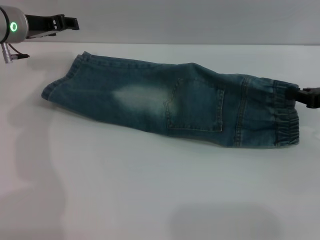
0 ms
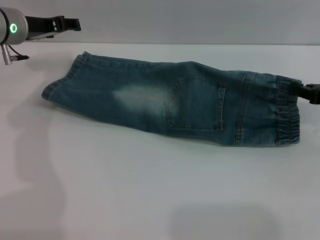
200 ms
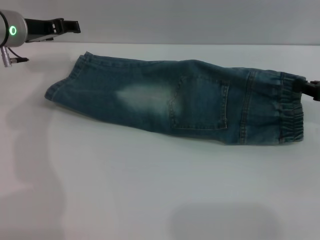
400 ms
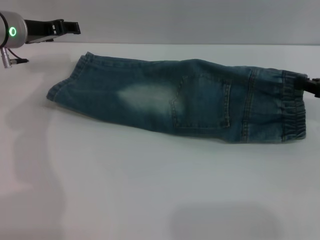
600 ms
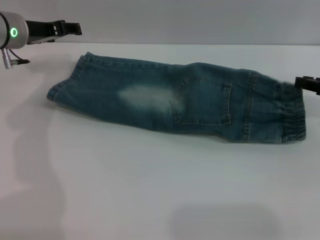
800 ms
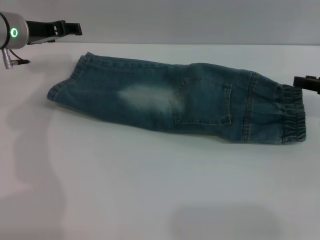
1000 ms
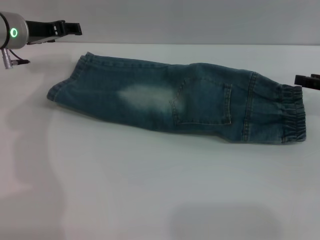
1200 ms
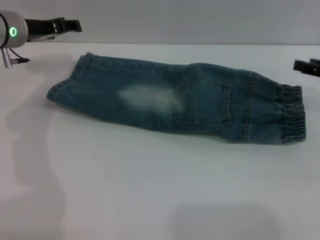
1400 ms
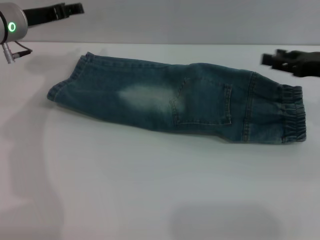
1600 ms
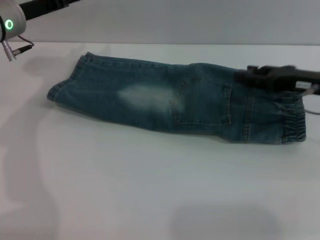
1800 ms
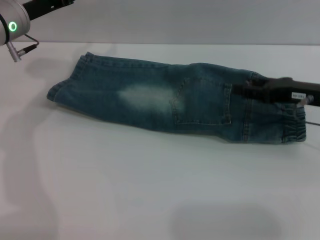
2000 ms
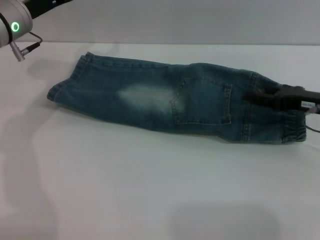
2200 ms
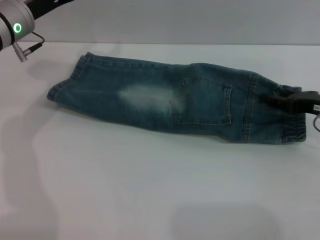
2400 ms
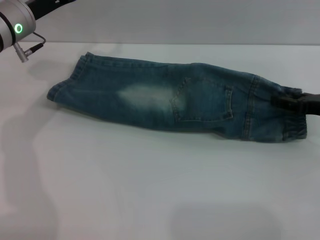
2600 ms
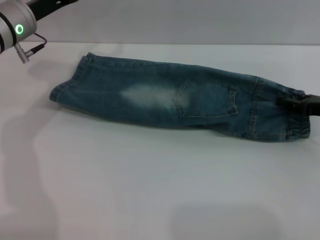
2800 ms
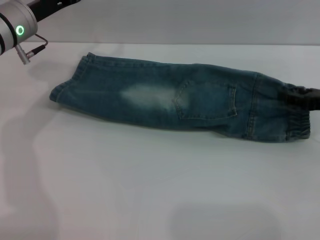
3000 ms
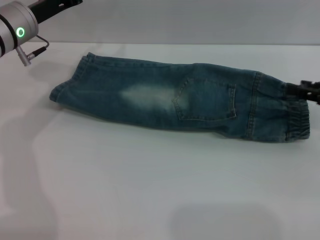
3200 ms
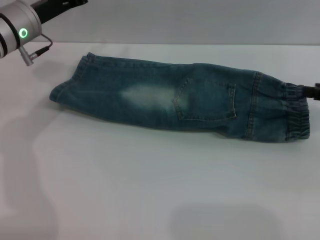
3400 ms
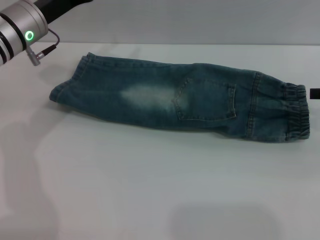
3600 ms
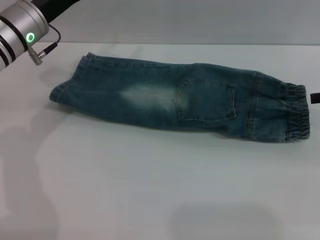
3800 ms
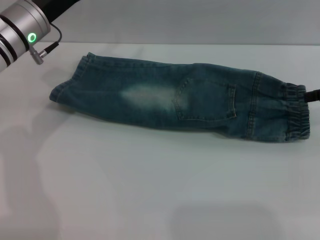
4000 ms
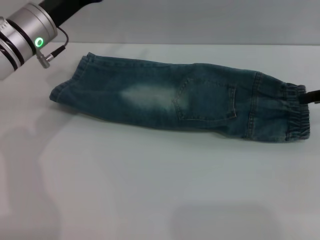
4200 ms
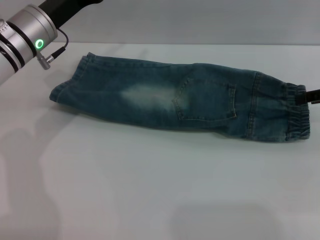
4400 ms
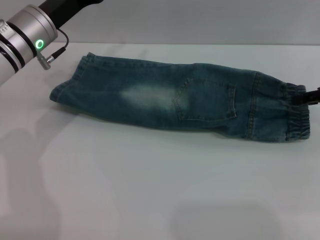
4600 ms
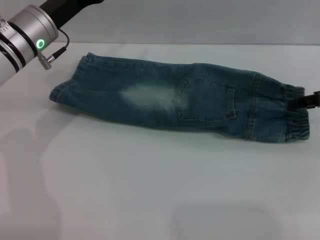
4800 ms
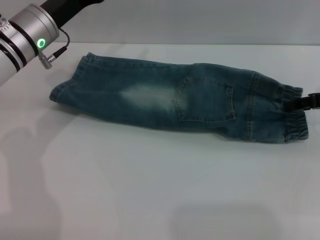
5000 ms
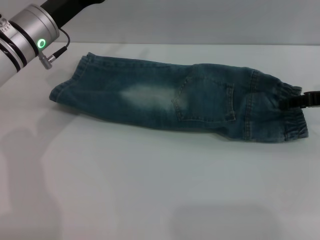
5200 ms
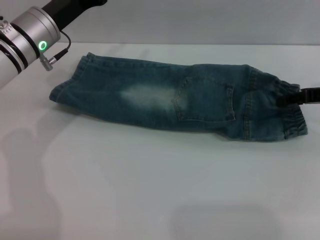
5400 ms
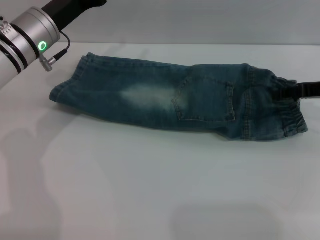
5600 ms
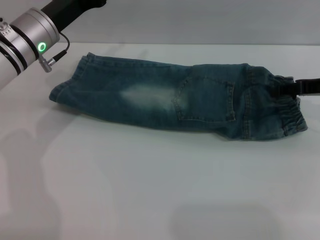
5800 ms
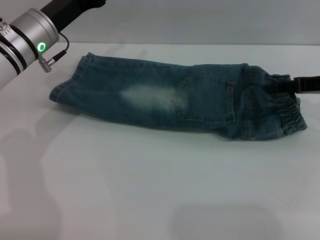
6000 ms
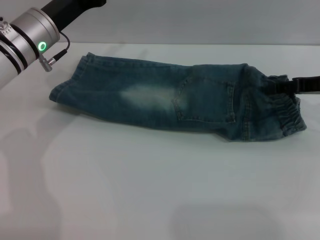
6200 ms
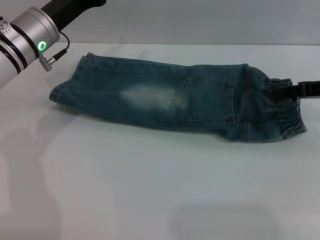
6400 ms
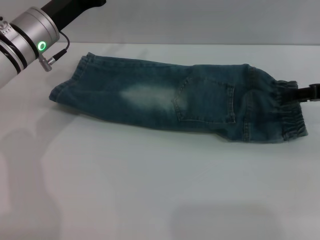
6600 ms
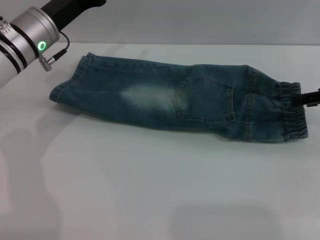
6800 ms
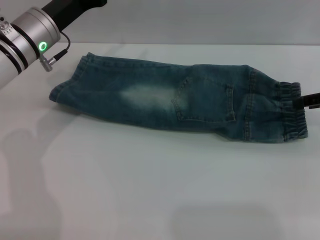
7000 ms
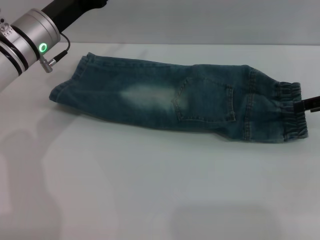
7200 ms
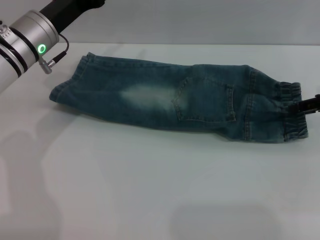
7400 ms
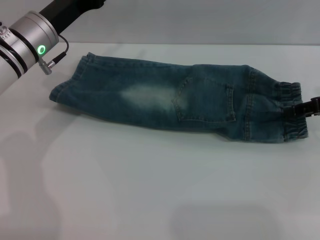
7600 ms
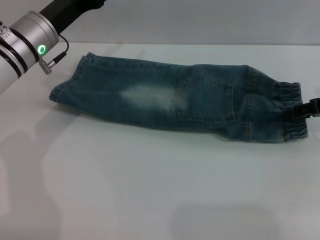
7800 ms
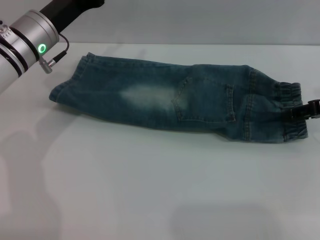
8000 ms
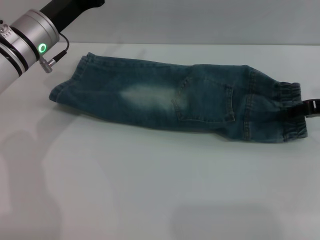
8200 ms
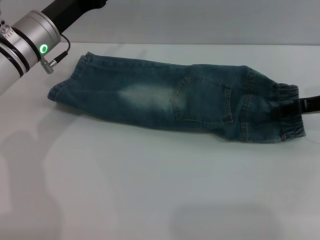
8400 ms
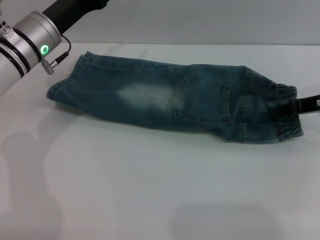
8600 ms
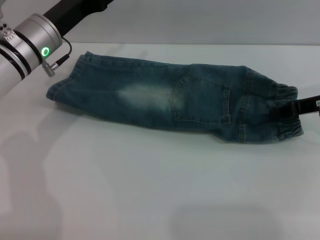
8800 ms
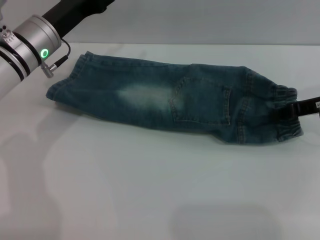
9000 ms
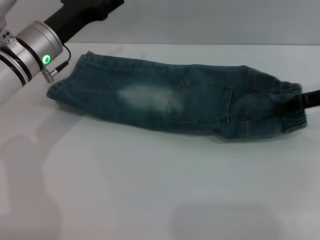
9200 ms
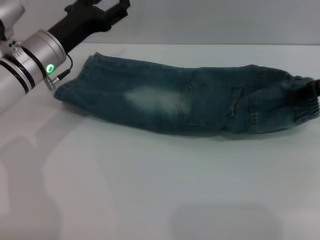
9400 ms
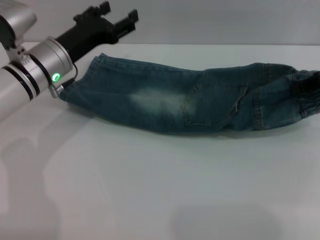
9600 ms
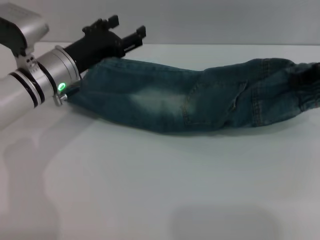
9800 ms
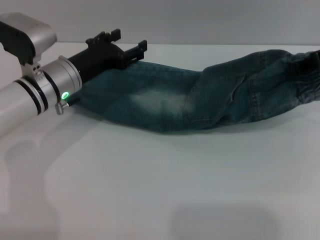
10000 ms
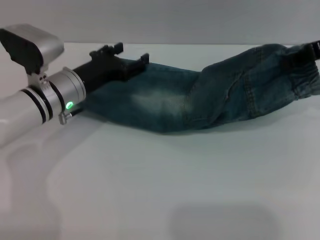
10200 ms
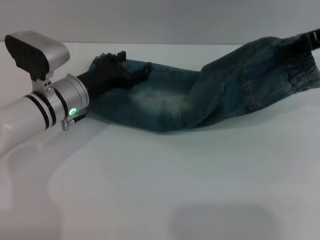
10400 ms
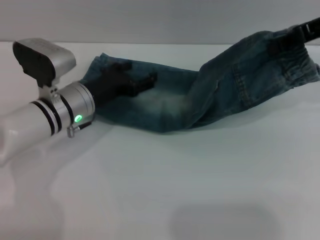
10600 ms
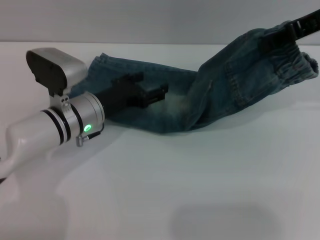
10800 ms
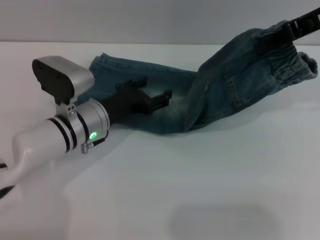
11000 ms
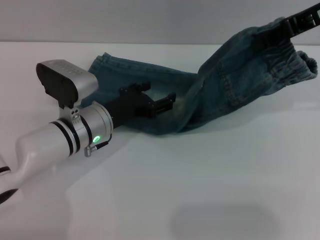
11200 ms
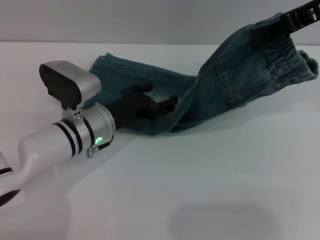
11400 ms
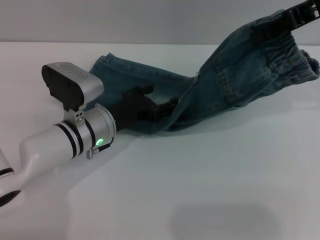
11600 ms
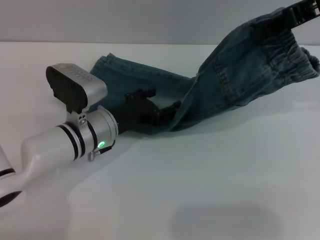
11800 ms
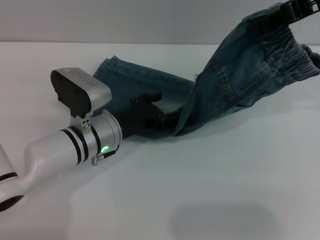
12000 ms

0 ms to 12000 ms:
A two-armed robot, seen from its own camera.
0 ms to 1600 ms: The right gripper opens.
1600 ms to 3000 ms: The right gripper goes about 5 cm downward.
3000 ms to 4400 ms: The right gripper travels upward by about 5 cm.
4400 ms to 7600 ms: There are only small adjustments of the grippers.
7600 ms to 9000 ms: The right gripper closes up.
9000 ms to 10400 ms: The right gripper moves upward, roughly 15 cm. Meanwhile the left gripper travels downward by some 5 cm.
10400 ms to 12000 ms: The right gripper shifts by about 5 cm. Meanwhile the left gripper changes place by approximately 5 cm.

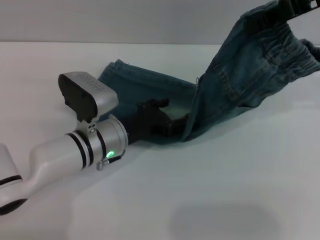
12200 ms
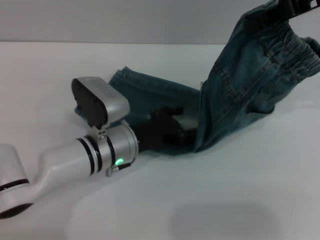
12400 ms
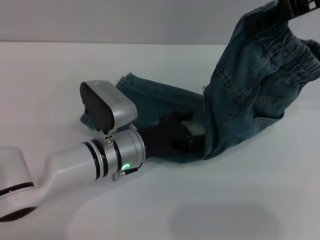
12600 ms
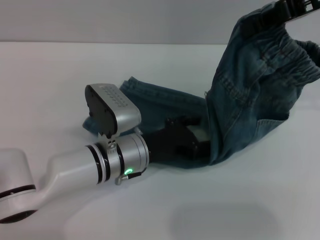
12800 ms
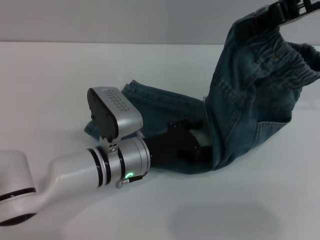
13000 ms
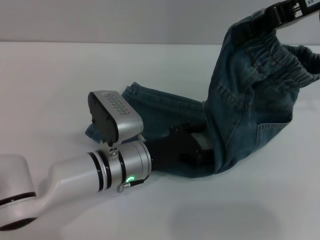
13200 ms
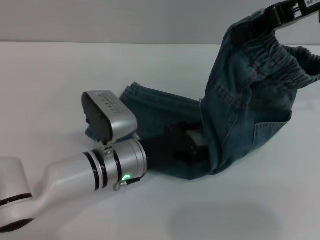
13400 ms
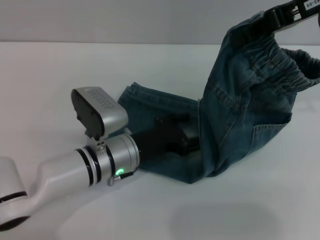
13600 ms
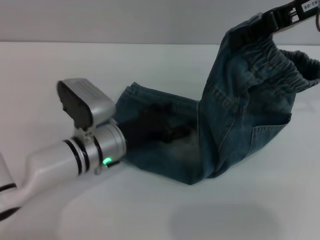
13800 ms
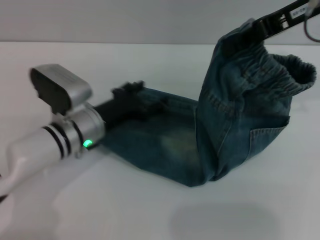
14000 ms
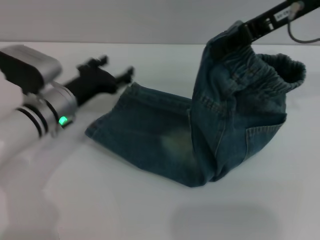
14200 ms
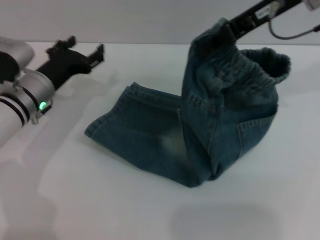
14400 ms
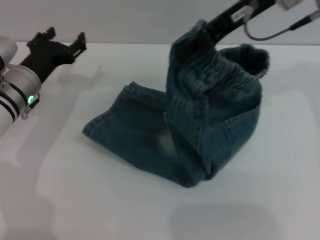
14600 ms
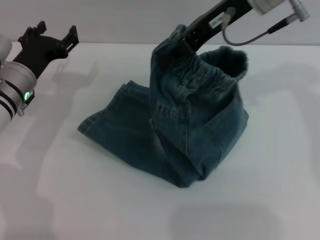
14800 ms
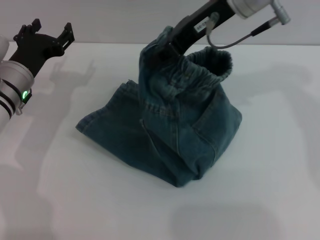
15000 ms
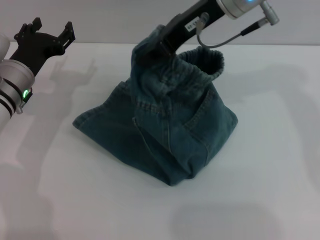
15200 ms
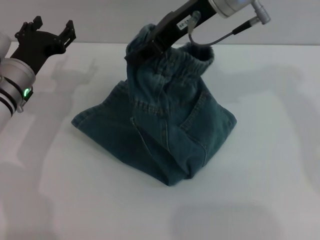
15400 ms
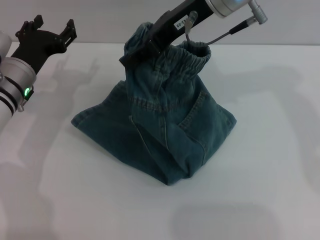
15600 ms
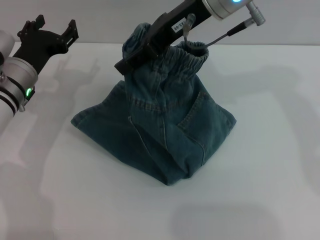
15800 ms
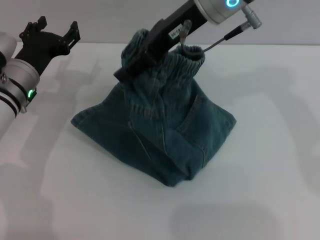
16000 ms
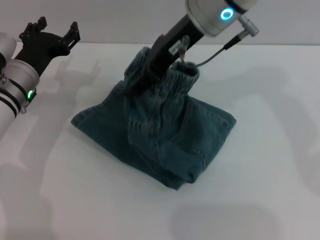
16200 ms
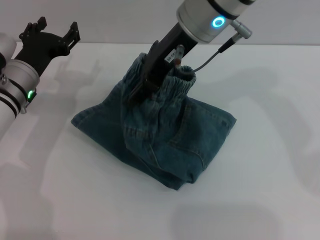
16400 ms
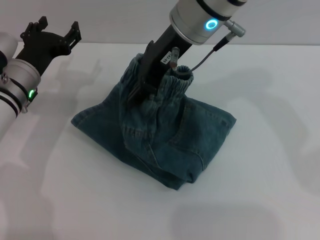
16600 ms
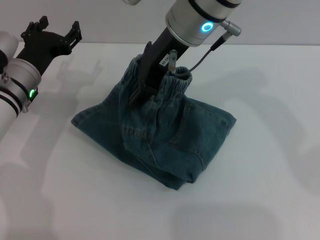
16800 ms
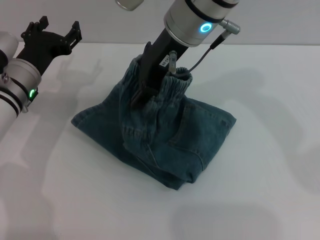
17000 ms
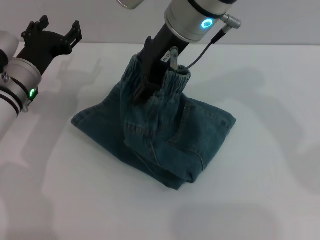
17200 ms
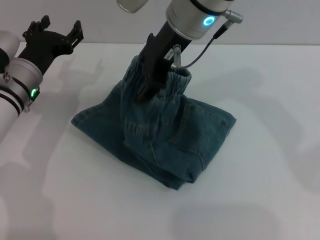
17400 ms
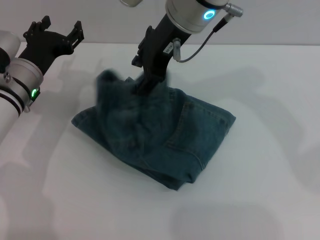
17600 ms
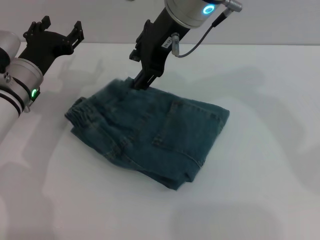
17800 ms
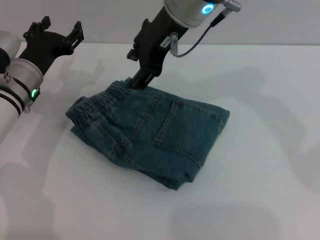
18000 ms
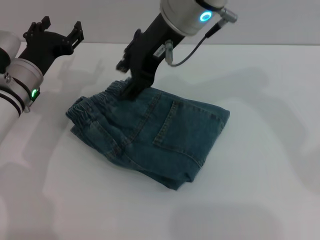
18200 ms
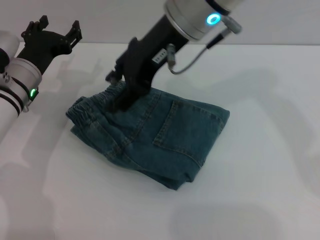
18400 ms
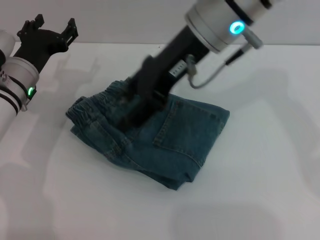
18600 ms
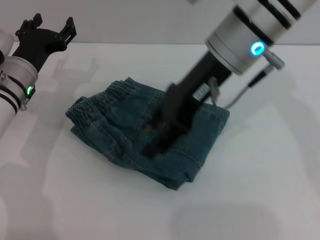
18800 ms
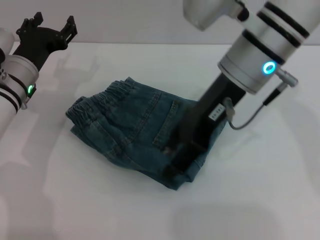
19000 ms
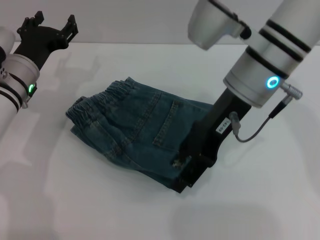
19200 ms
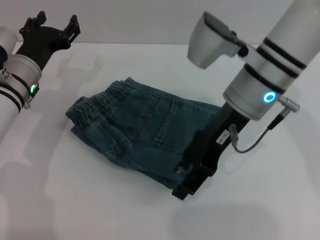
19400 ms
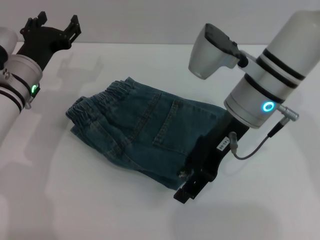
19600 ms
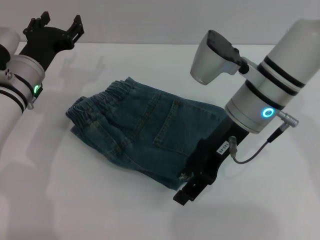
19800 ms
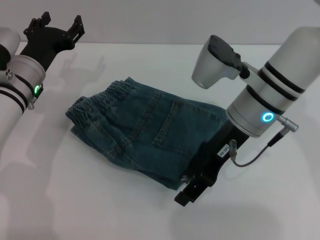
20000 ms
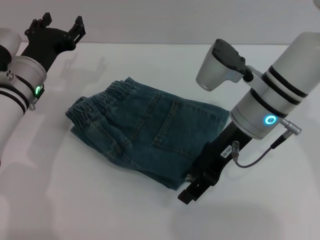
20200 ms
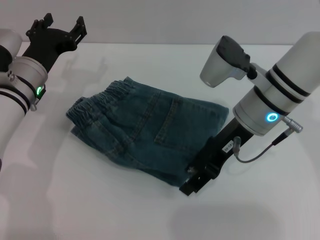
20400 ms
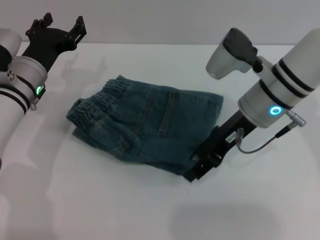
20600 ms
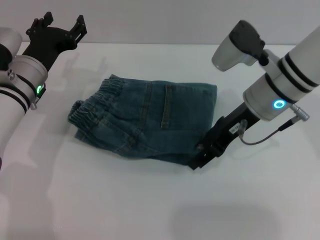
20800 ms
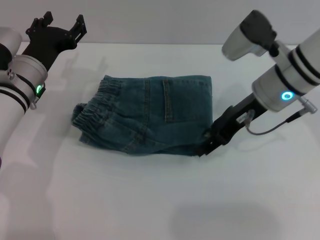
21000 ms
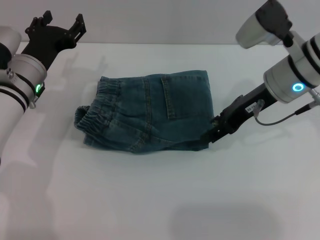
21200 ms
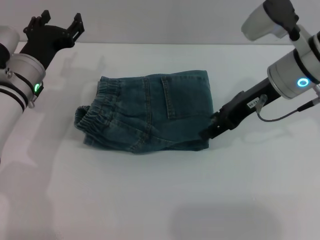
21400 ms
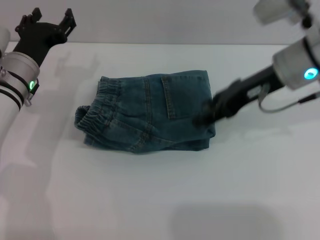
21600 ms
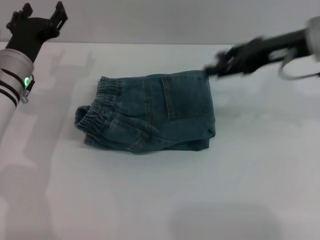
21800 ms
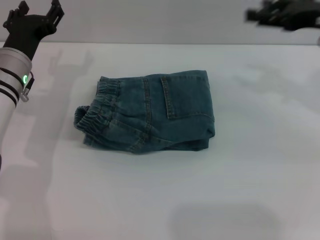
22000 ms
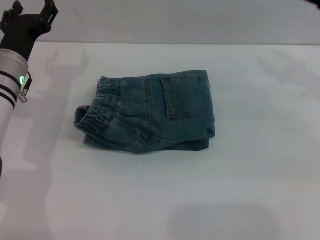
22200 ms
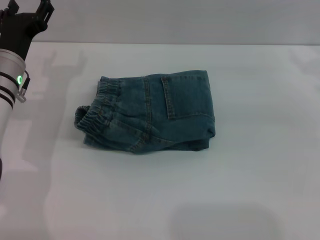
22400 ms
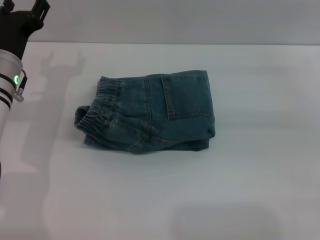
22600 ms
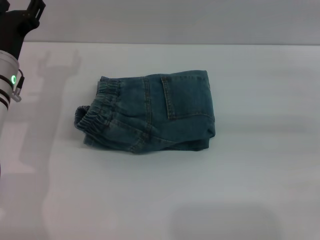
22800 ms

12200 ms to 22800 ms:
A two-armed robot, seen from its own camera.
Step, 12200 ms to 17800 ms: Fold the pants from right to left with the right gripper.
Step, 18000 ms to 21600 ms: Place the folded trousers onto the center area with the right grippers.
13800 ms to 15200 ms: The right gripper travels to the left by roughly 15 cm, while the left gripper travels to the left and forward by about 15 cm.
15200 ms to 16800 ms: The right gripper goes about 5 cm to the left, and opens.
16800 ms to 18200 ms: The grippers move only a little.
18200 ms to 19800 ms: The right gripper is displaced downward and to the right by approximately 15 cm.
19800 ms to 21200 ms: The right gripper moves to the right, some 5 cm.
21200 ms to 22800 ms: The right gripper is displaced to the right by about 20 cm.
